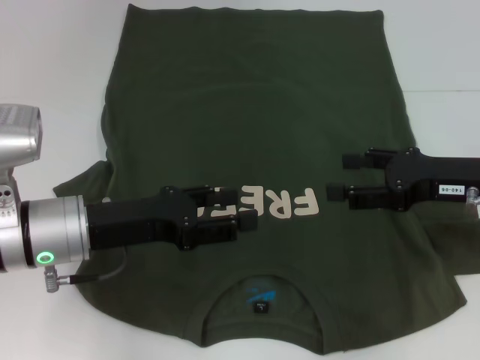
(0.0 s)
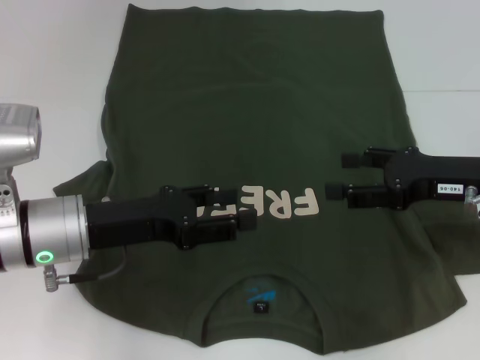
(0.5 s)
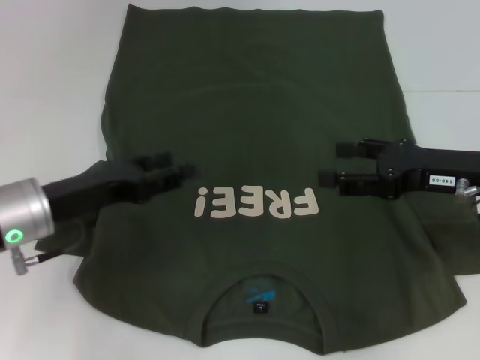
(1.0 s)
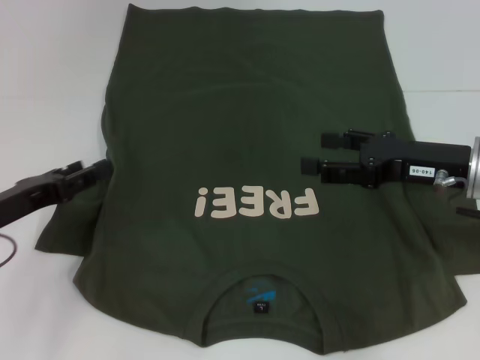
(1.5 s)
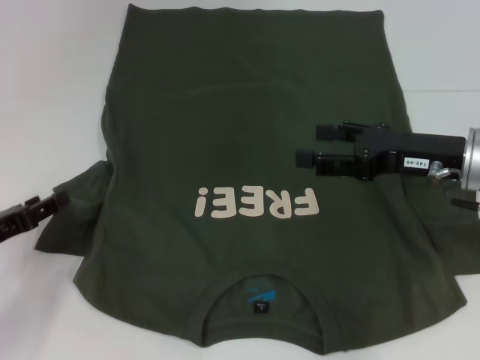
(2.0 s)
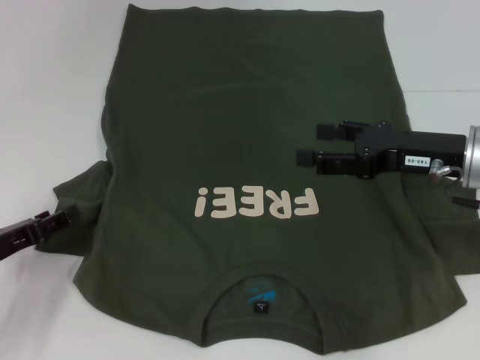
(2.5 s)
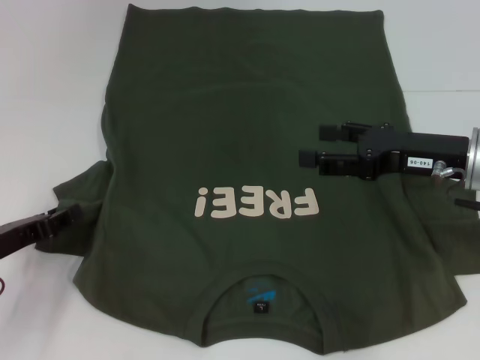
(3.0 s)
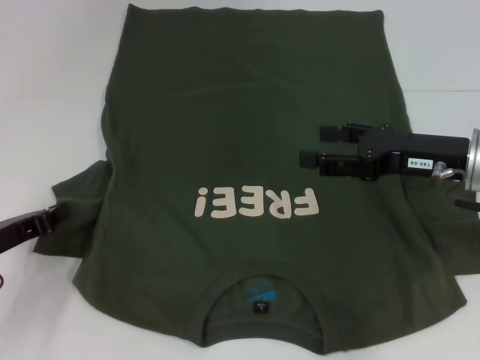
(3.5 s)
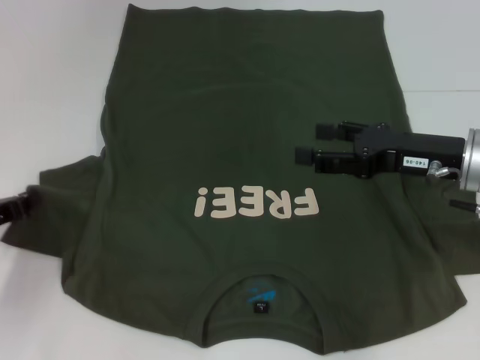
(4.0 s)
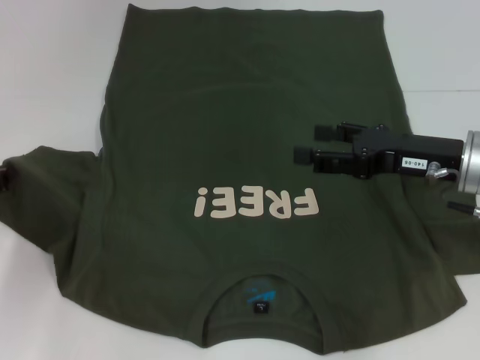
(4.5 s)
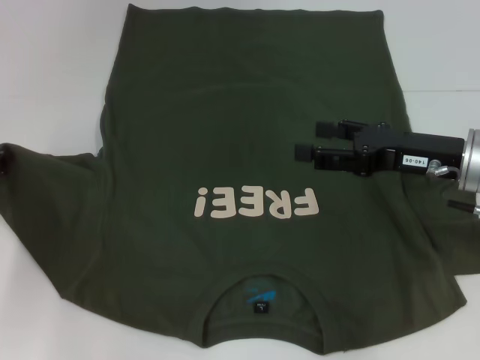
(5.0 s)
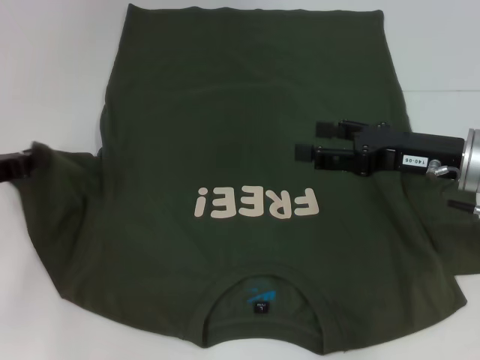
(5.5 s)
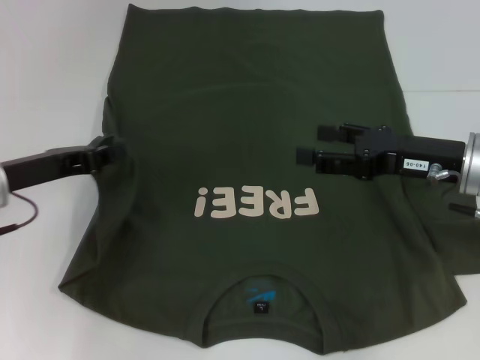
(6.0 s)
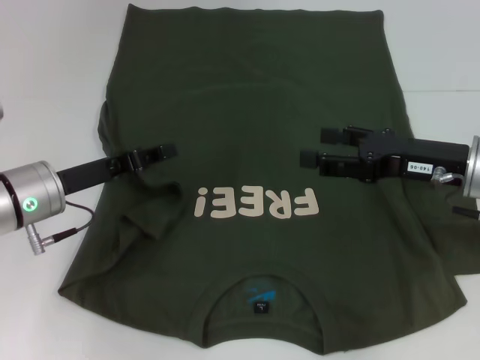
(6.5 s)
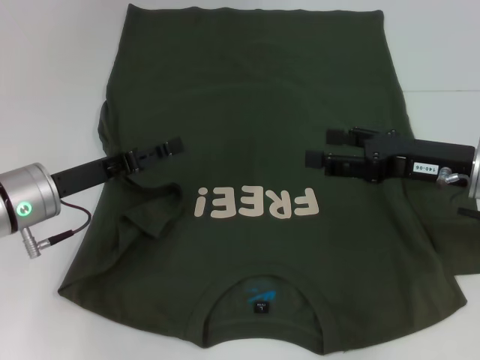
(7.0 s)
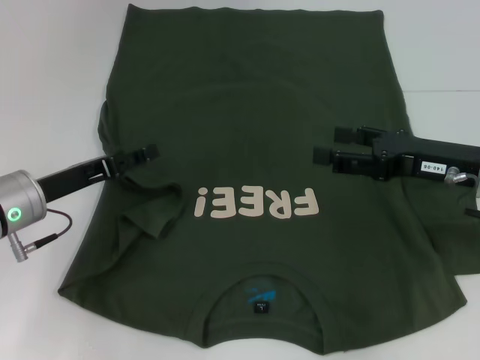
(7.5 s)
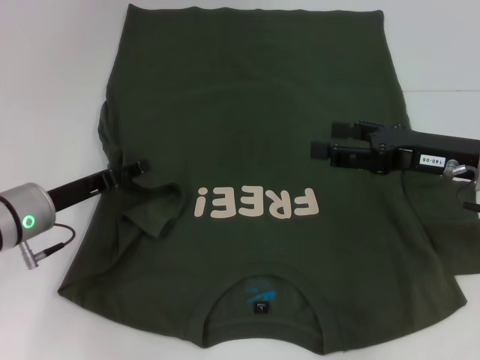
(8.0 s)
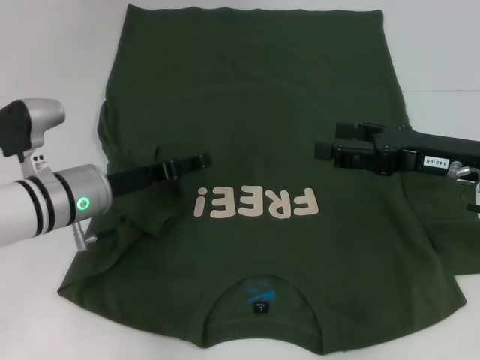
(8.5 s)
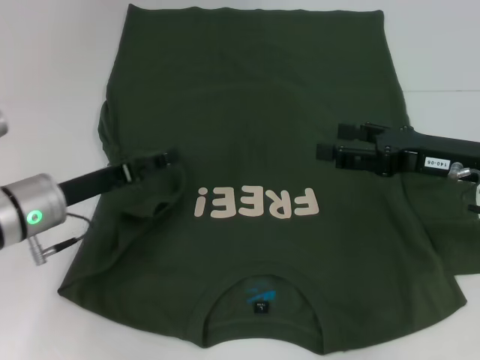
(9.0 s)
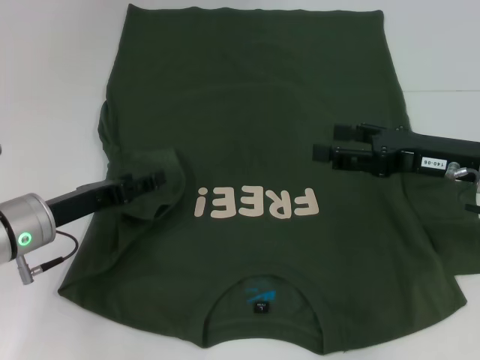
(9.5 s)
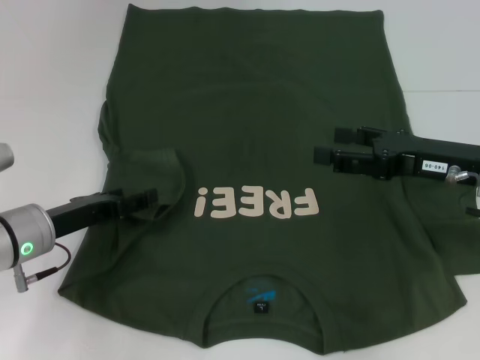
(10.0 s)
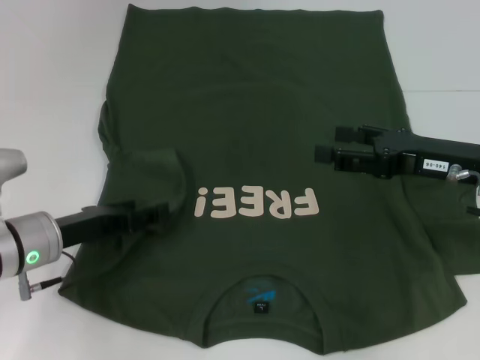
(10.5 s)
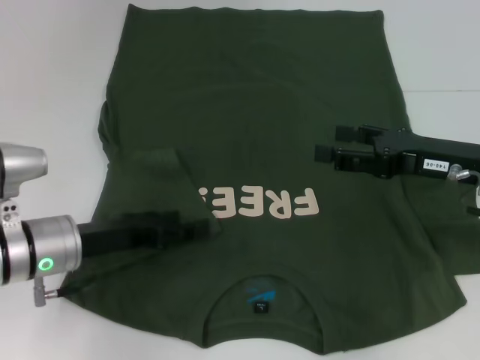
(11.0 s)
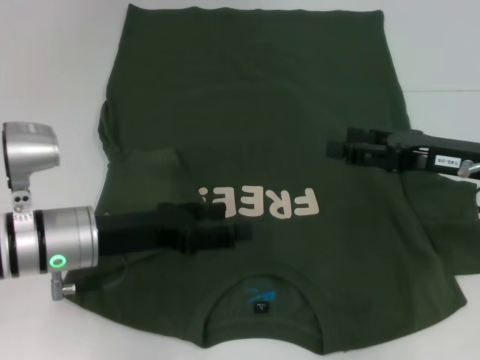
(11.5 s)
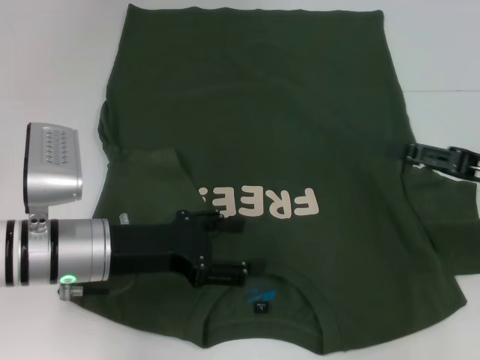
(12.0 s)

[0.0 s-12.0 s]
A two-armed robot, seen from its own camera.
Step, 0.0 to 11.0 s: Fold the bottom left sleeve with your left hand.
0.0 to 2.0 s: The left gripper is displaced to the left and downward by approximately 15 cm.
2.0 to 4.0 s: The left gripper closes its fingers.
4.0 to 6.0 s: The left gripper goes roughly 10 cm upward and to the right.
6.0 to 8.0 s: The left gripper shifts approximately 5 cm downward, and opens.
10.0 to 12.0 s: Both grippers move to the right, about 5 cm.

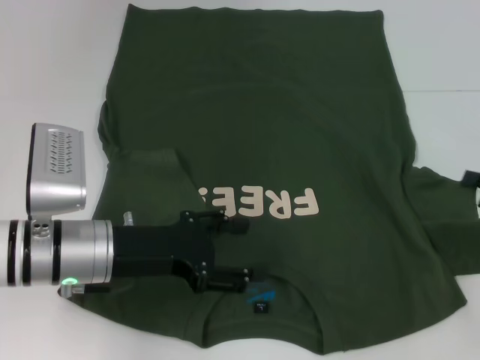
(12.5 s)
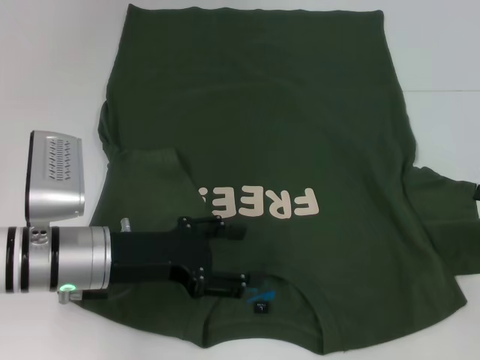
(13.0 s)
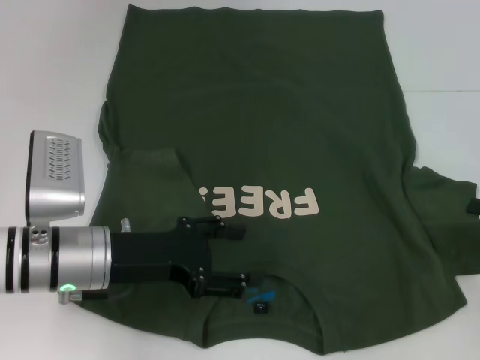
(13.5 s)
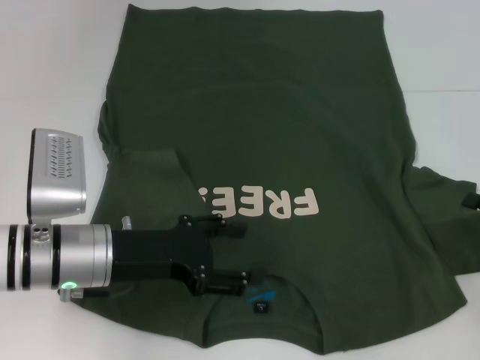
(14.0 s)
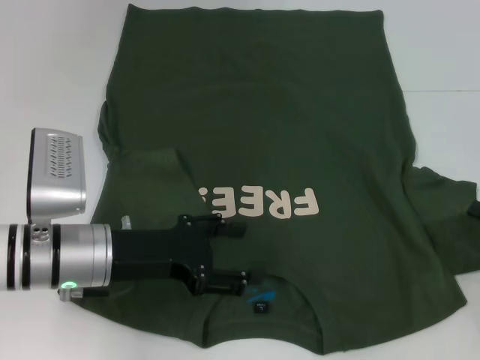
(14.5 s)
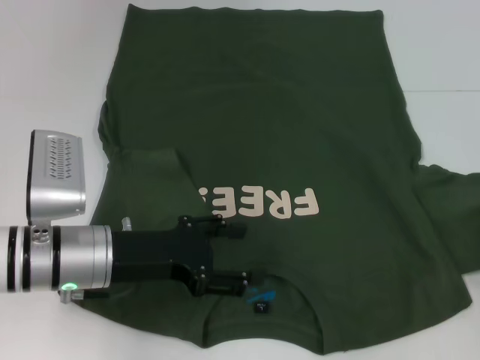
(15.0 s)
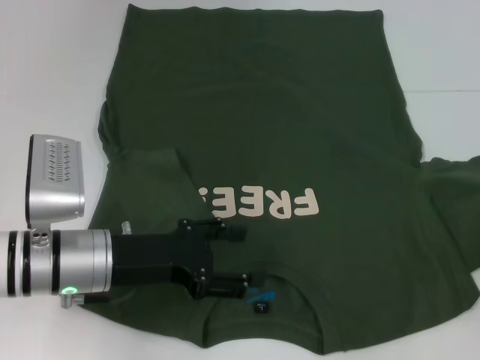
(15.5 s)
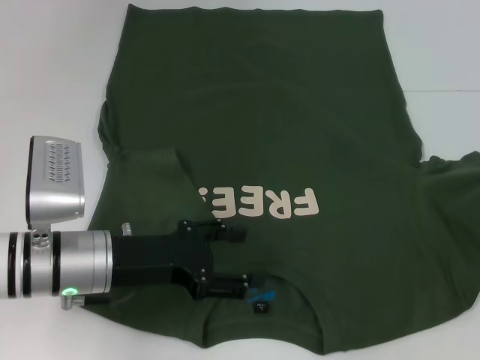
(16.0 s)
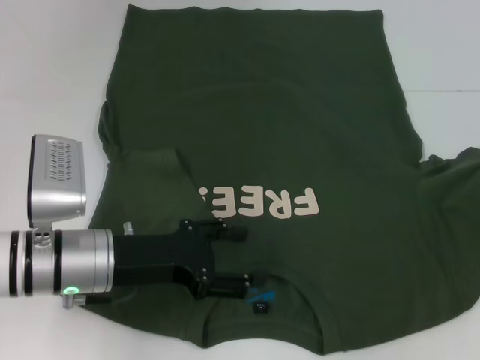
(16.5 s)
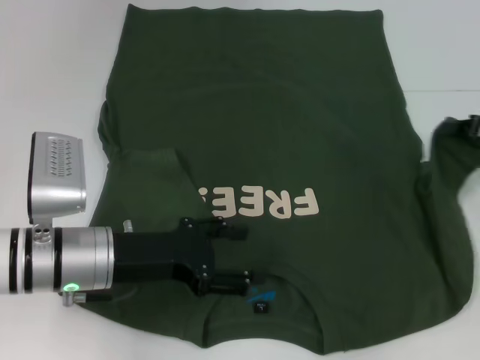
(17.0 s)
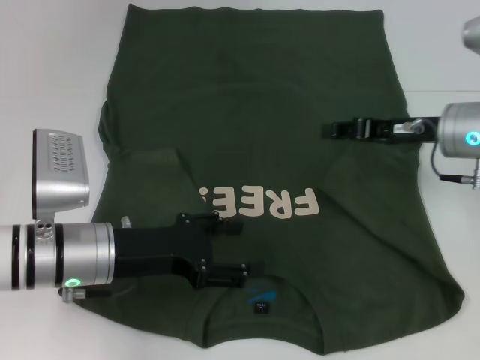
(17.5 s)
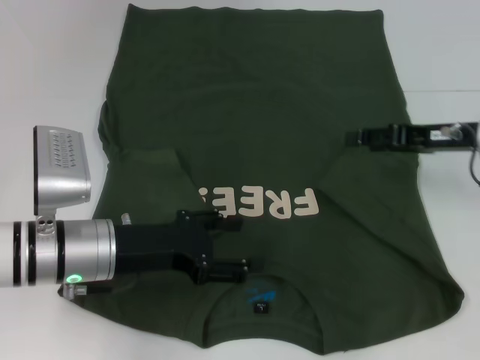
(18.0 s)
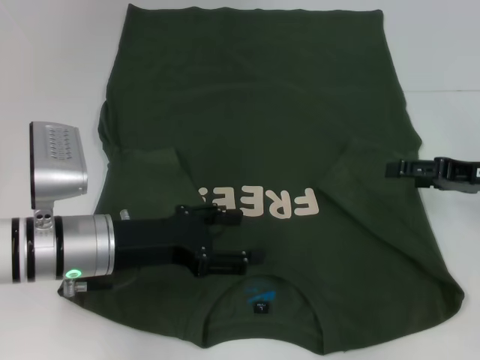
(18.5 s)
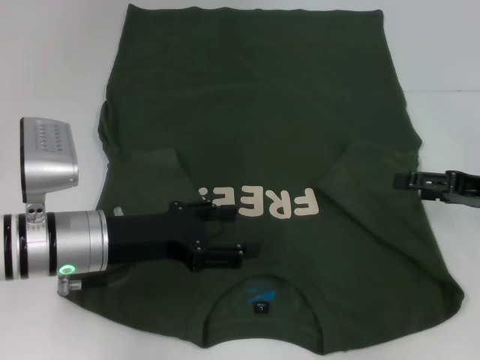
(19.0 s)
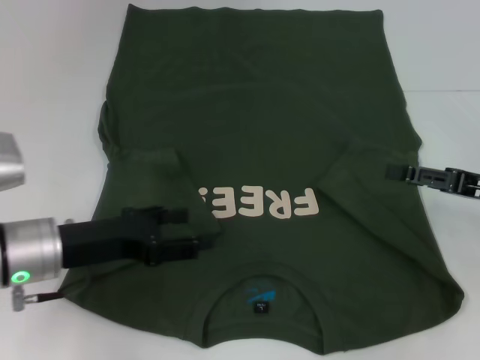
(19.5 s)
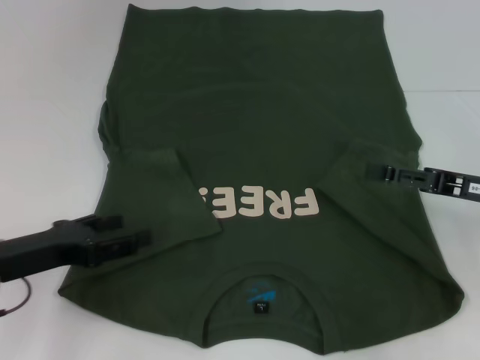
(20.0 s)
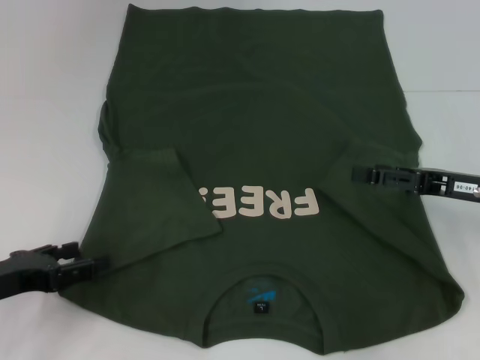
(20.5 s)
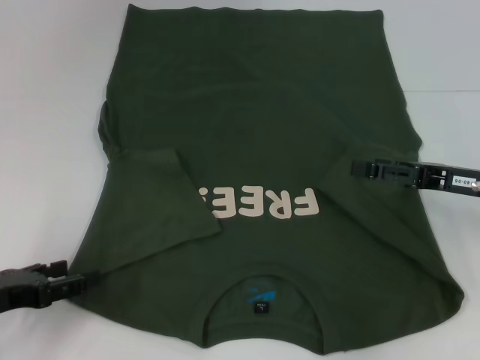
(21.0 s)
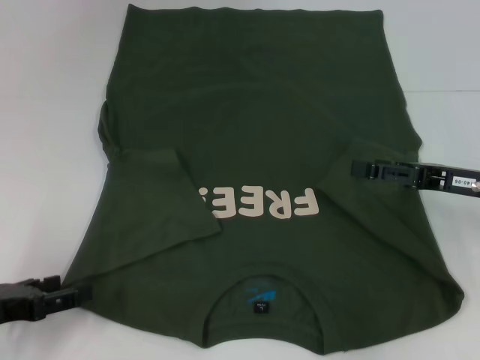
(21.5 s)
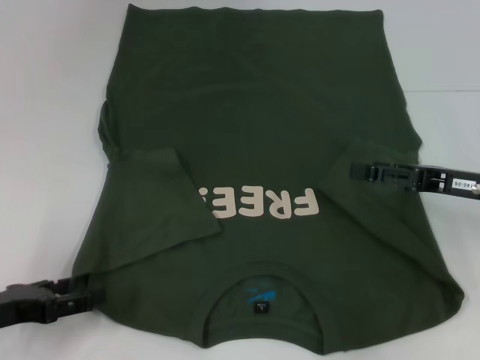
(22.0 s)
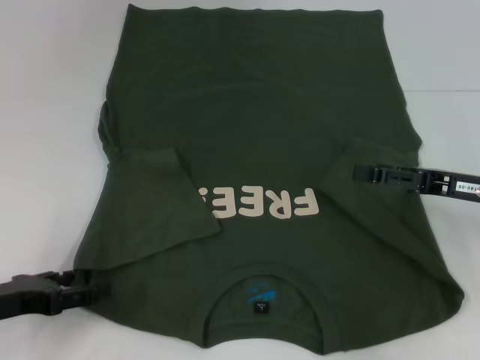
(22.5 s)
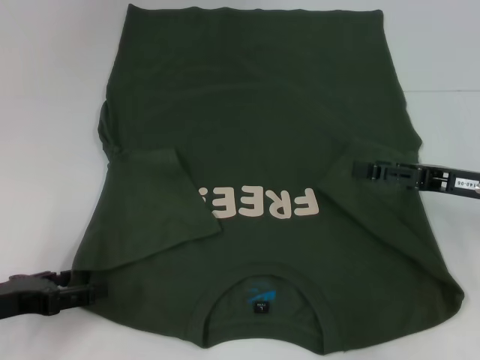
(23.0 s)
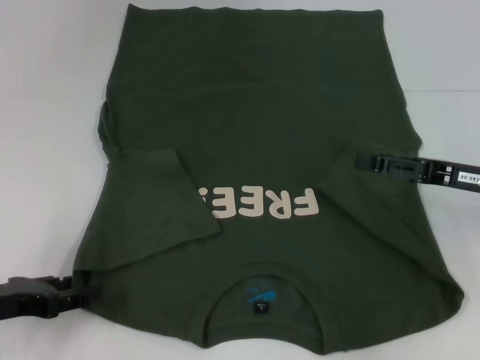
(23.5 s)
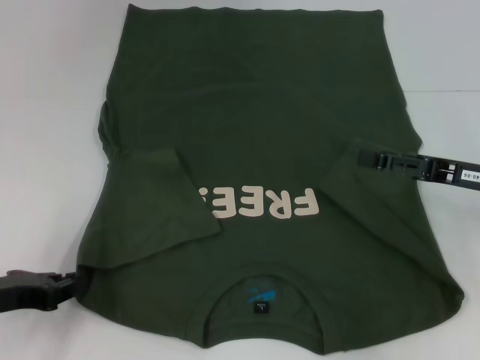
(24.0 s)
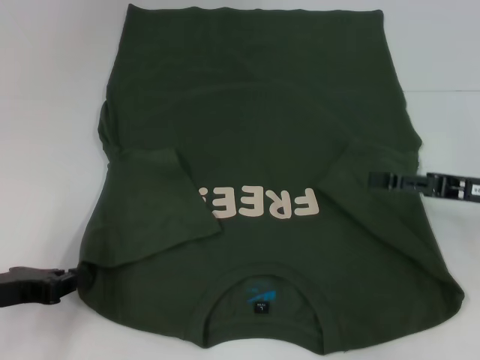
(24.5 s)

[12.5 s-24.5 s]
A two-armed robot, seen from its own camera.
Step, 12.5 to 17.5 s: Fold the bottom right sleeve with your right hand.
14.5 to 16.5 s: The right gripper is displaced forward by some 5 cm, and closes.
16.5 to 18.5 s: The right gripper shifts about 10 cm to the left, and opens.
18.5 to 20.5 s: The left gripper is displaced to the left and backward by approximately 15 cm.
20.5 to 22.5 s: The grippers make only small movements.
22.5 to 24.5 s: The left gripper closes its fingers.

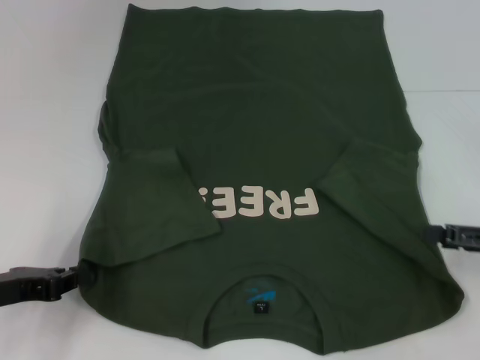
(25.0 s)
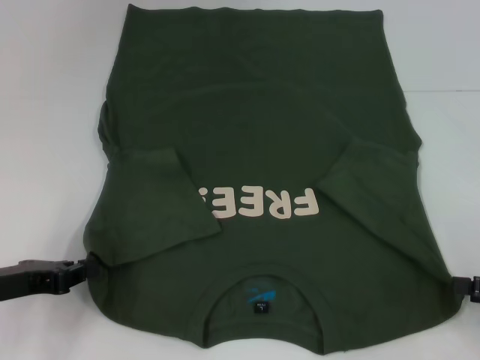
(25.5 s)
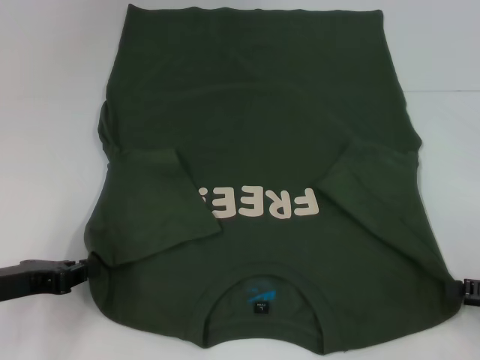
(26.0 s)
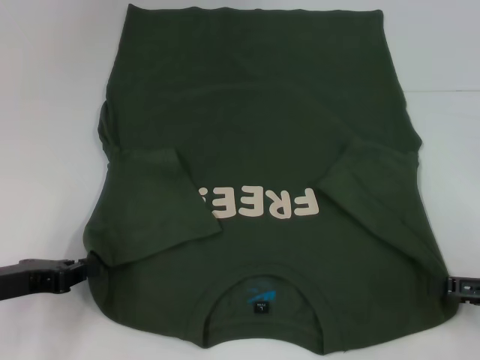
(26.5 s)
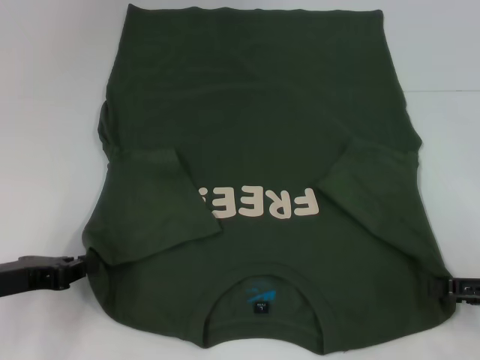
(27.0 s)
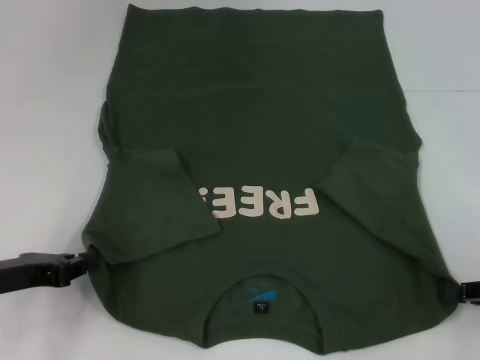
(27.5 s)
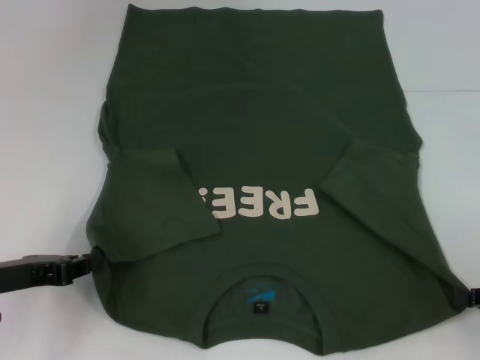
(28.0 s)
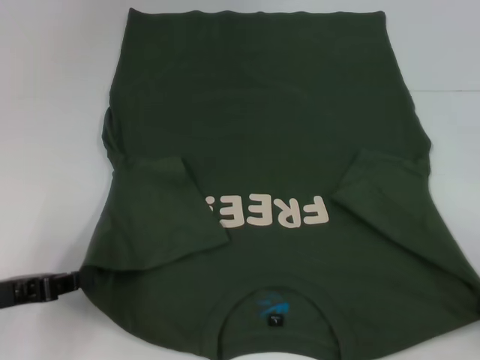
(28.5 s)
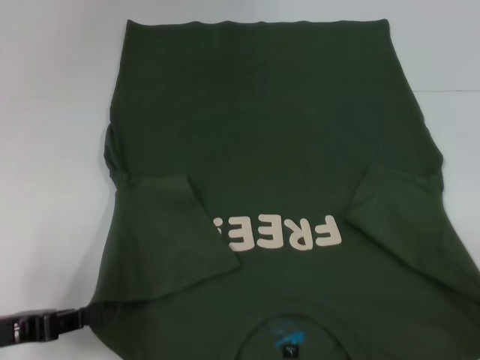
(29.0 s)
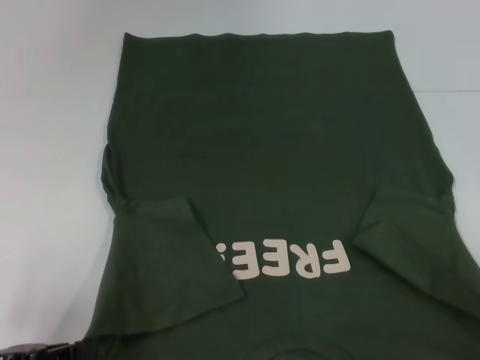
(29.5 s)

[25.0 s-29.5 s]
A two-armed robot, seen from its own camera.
Step, 25.0 to 27.5 s: Grab the bottom right corner with your right hand.
25.0 to 27.0 s: The grippers make only small movements.
27.0 to 29.5 s: The right gripper shifts some 10 cm backward and to the right, and closes its fingers; the left gripper travels backward by roughly 10 cm.
